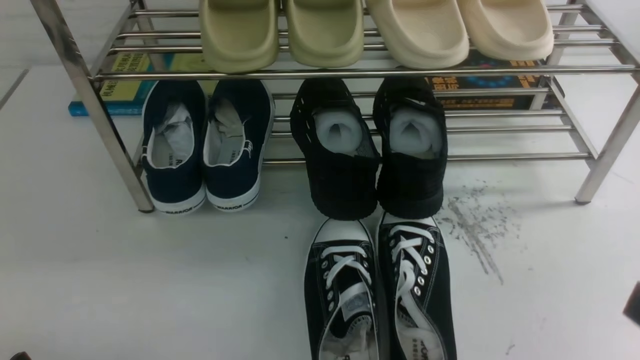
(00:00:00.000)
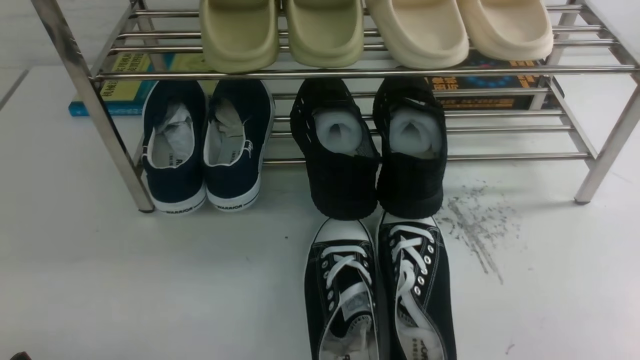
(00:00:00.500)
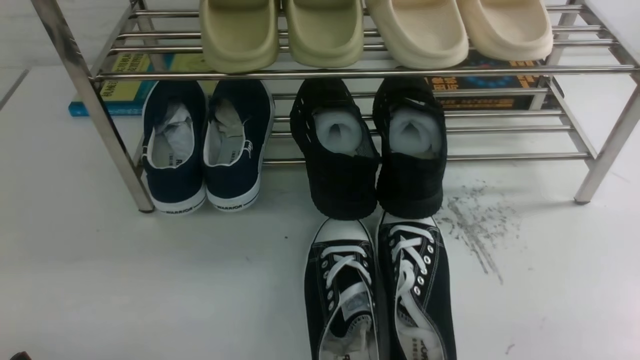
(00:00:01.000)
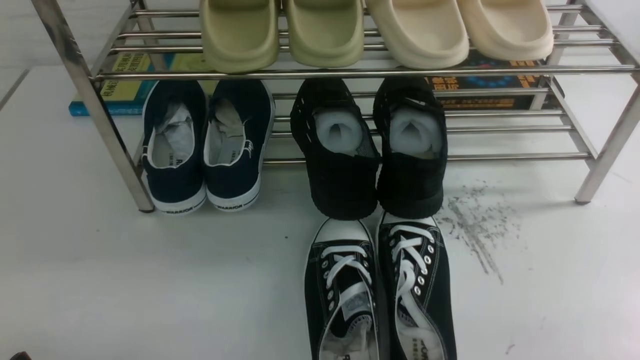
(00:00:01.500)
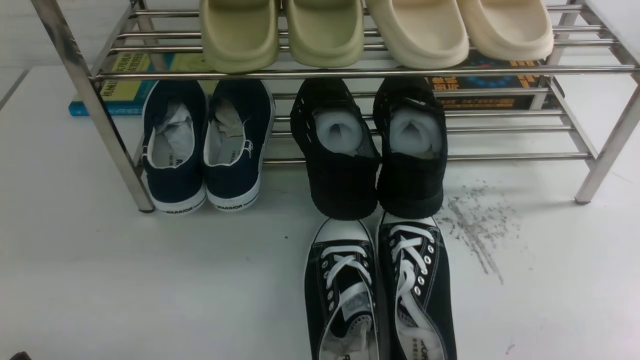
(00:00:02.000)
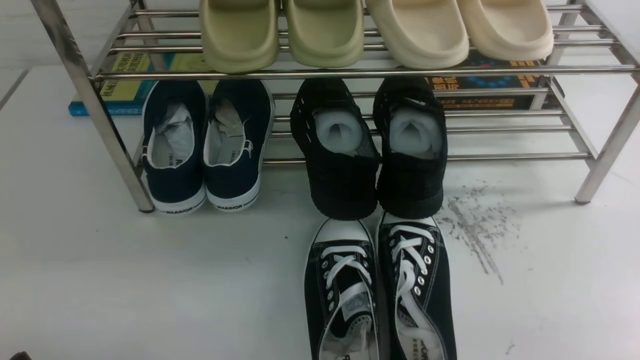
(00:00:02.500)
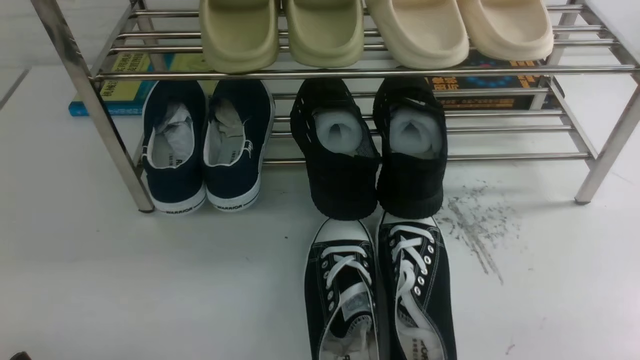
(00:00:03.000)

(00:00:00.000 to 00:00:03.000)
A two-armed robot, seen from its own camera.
00:00:01.500 - 00:00:03.000: The two grippers keep their place.

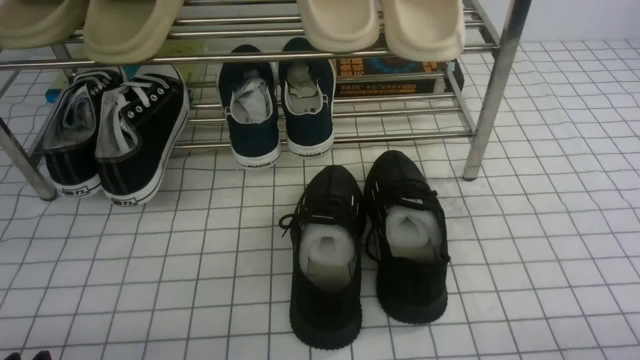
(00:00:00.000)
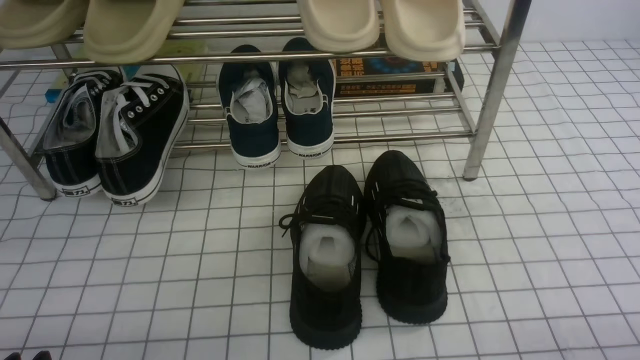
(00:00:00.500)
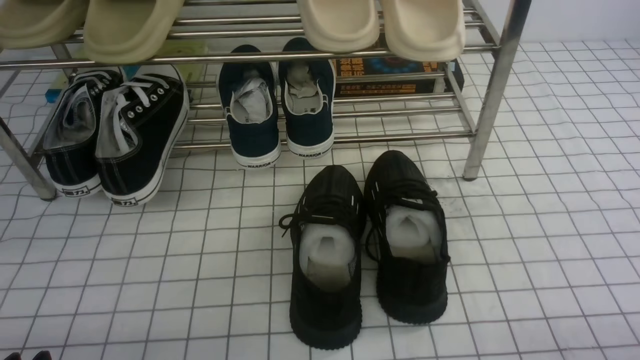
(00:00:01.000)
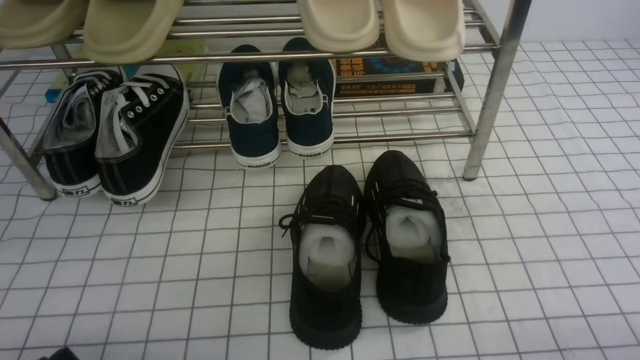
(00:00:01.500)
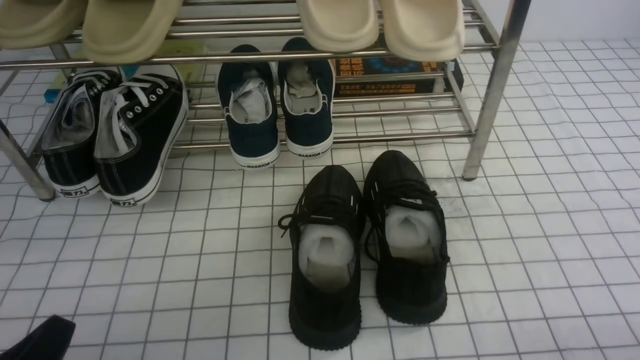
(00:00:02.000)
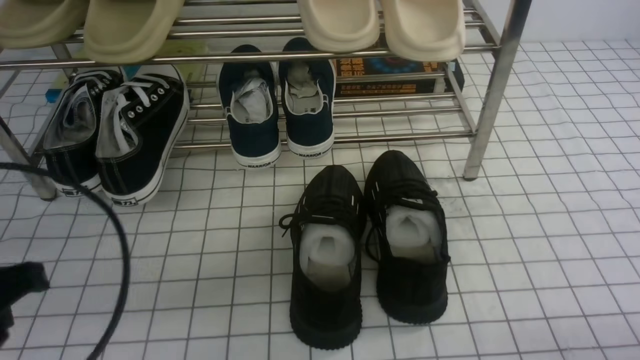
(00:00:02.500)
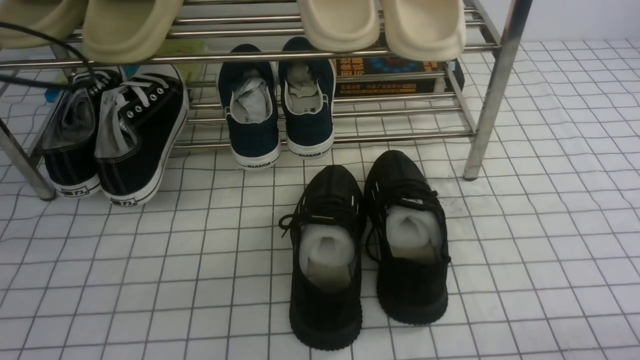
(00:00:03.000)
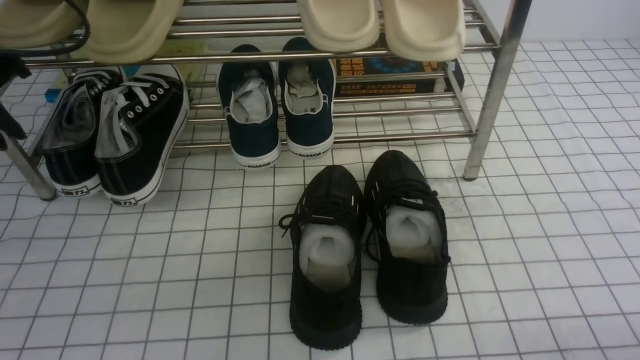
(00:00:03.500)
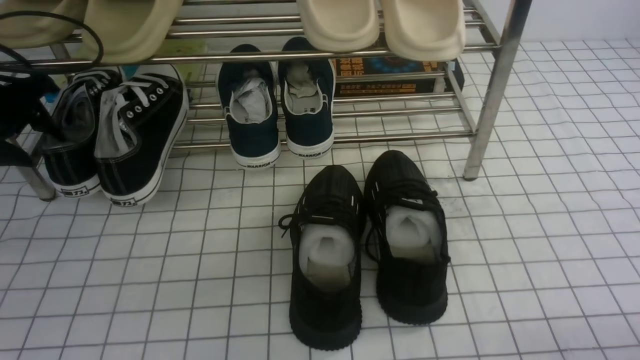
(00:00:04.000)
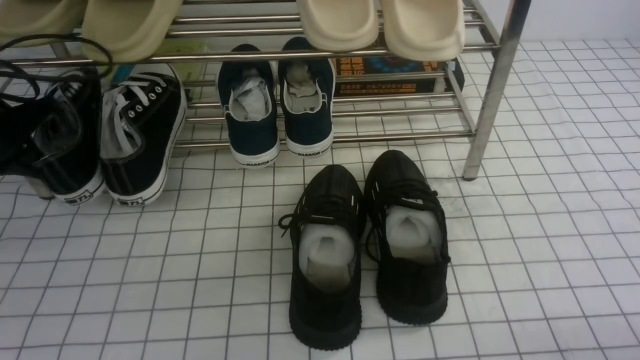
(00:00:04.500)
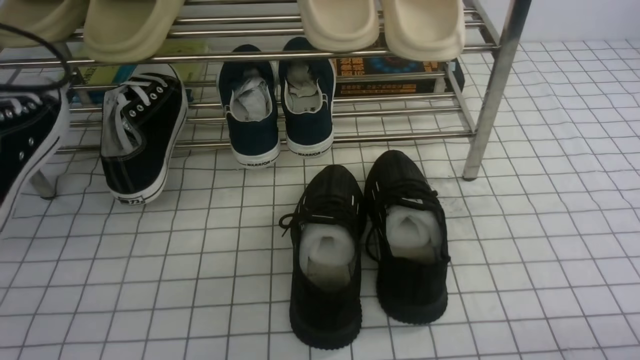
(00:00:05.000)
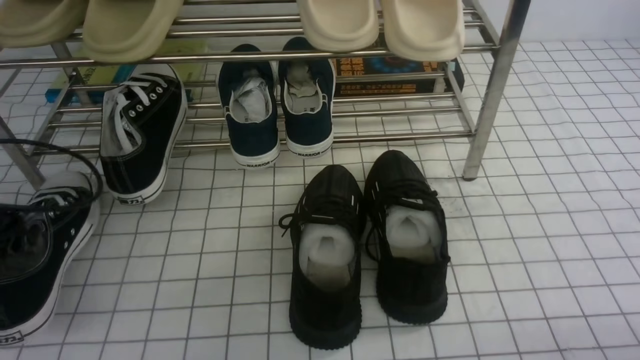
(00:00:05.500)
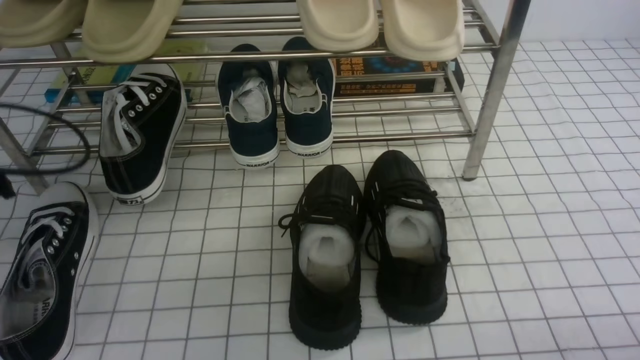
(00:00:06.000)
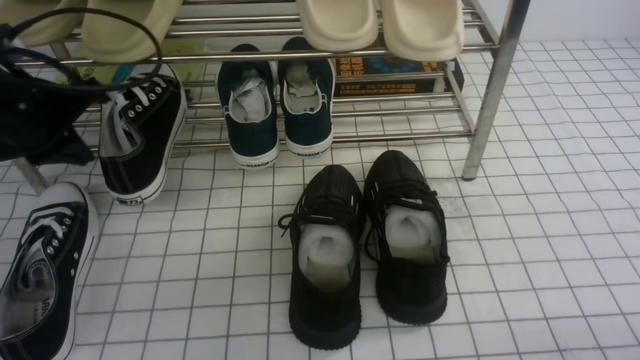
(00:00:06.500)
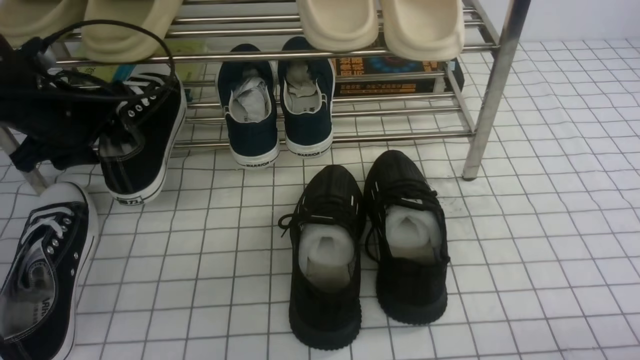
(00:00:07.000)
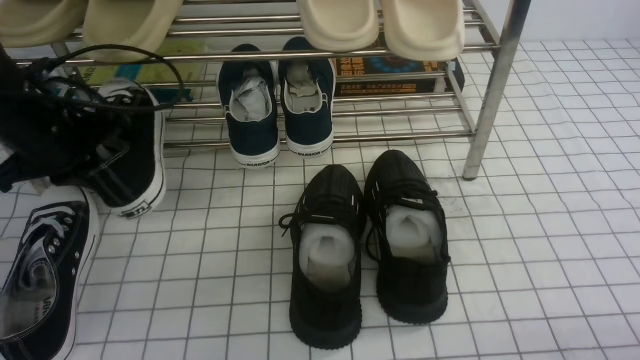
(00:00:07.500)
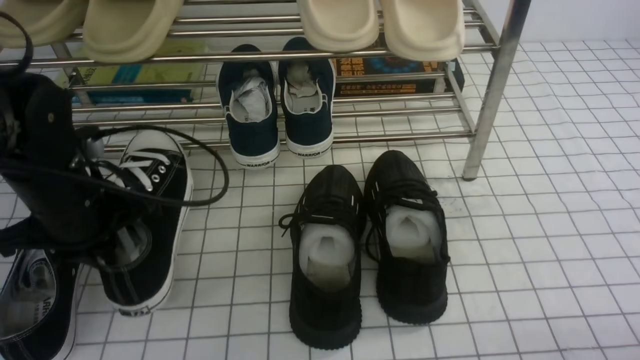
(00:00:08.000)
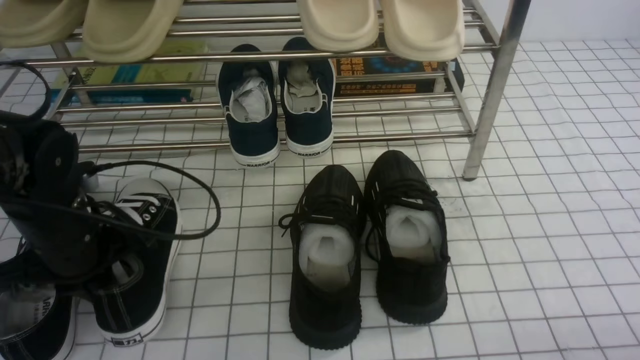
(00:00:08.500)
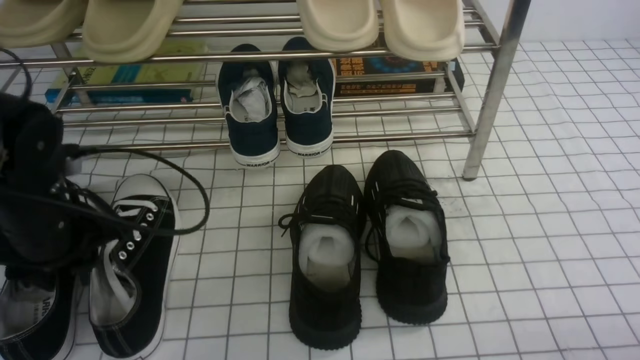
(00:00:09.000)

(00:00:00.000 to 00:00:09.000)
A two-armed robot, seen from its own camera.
Step, 00:00:00.000 - 00:00:04.000: use the left arm to clamp a shoe on the left side of the shoe rack.
Step, 00:00:04.500 - 00:00:06.000: Use your left arm to remove the clamped shoe from the shoe rack and put it down.
Step, 00:00:06.500 - 00:00:07.000: use the left arm to clamp a shoe on the left side of the shoe rack.
00:00:02.000 - 00:00:04.500: The left gripper goes about 30 cm forward, and opens and closes again.
00:00:04.500 - 00:00:07.000: The left gripper moves to the right, roughly 10 cm, travels backward and back again, roughly 10 cm each way, and opens its fingers.
00:00:07.000 - 00:00:09.000: The left gripper moves backward, approximately 10 cm, and closes, then opens again.

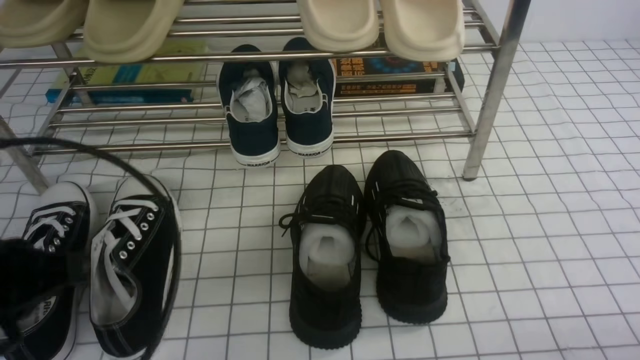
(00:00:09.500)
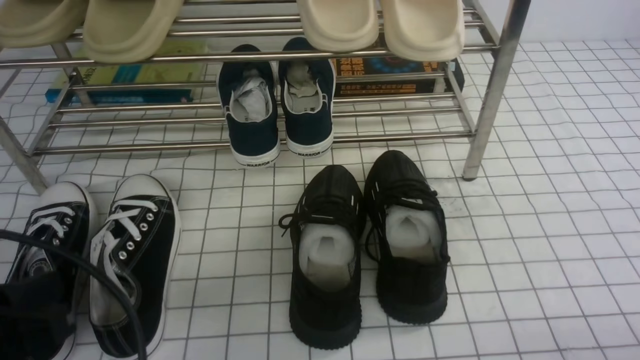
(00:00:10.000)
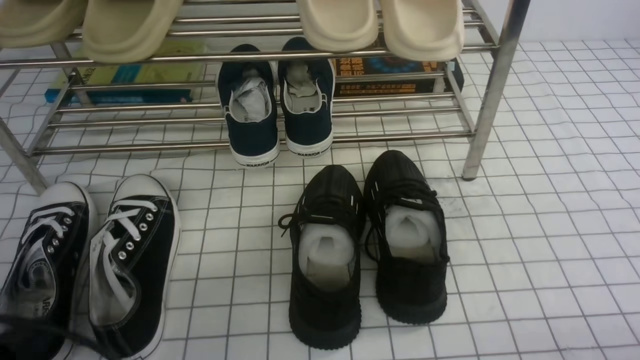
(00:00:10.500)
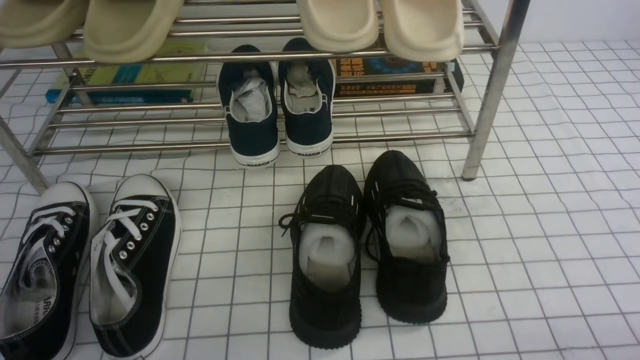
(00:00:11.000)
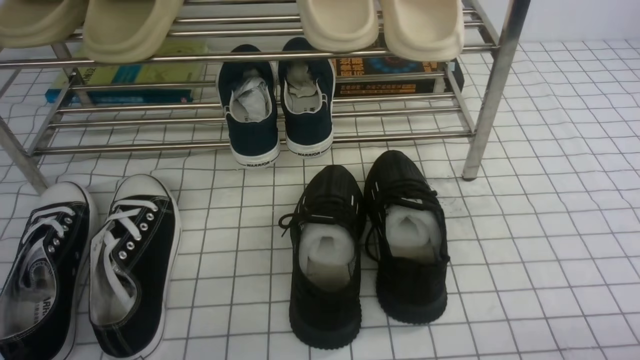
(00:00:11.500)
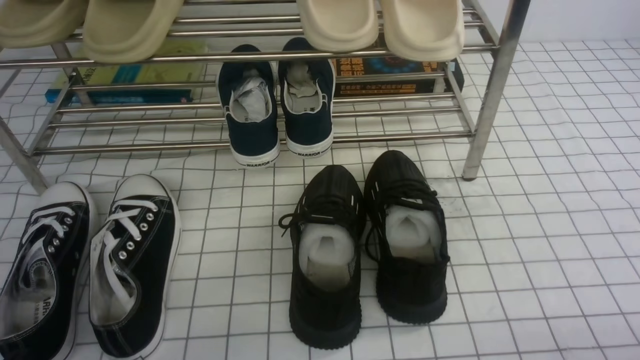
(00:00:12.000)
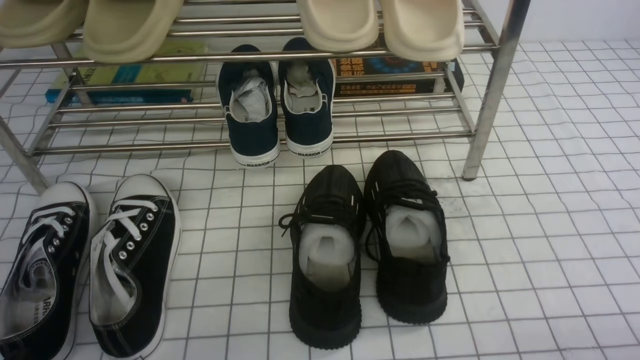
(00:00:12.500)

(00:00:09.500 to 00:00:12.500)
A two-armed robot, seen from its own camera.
00:00:09.500 - 00:00:11.000: The left gripper goes roughly 15 cm downward and backward.
00:00:11.000 - 00:00:12.500: The two grippers keep their place.
